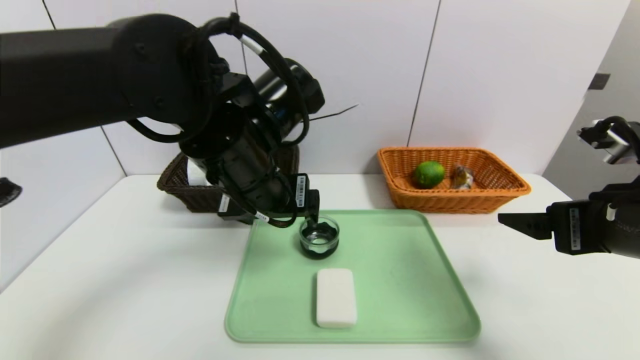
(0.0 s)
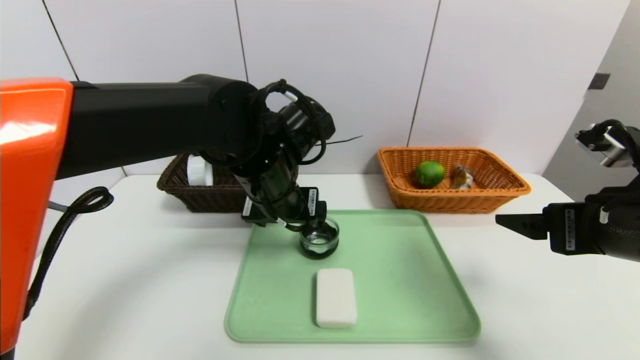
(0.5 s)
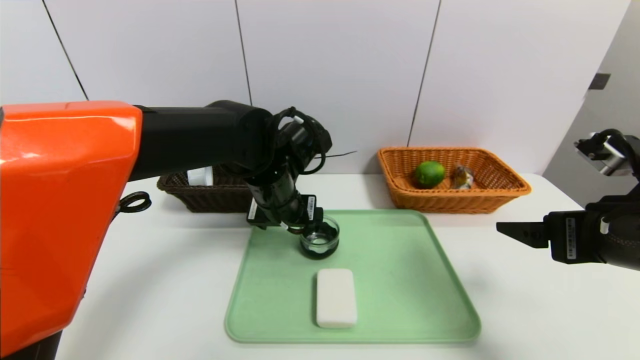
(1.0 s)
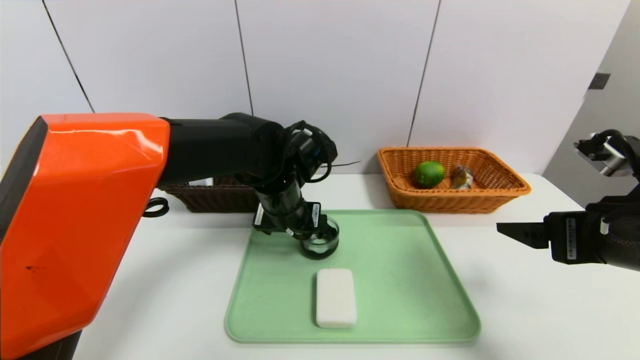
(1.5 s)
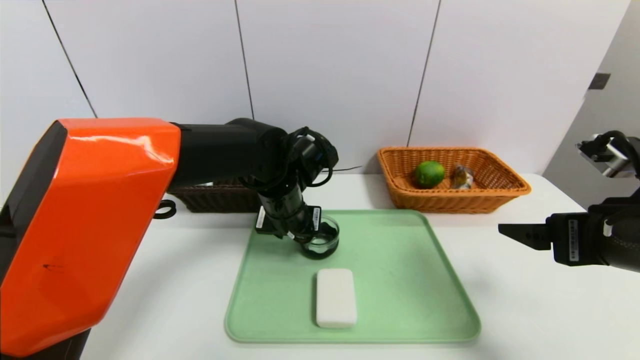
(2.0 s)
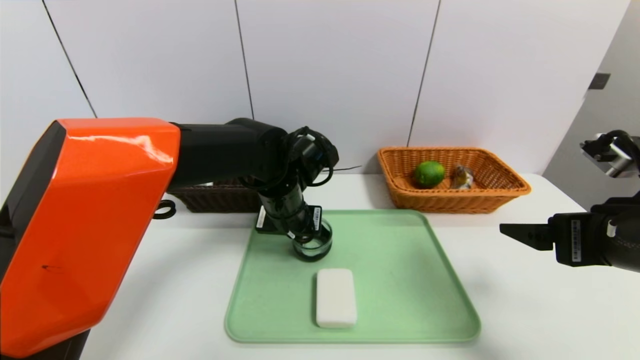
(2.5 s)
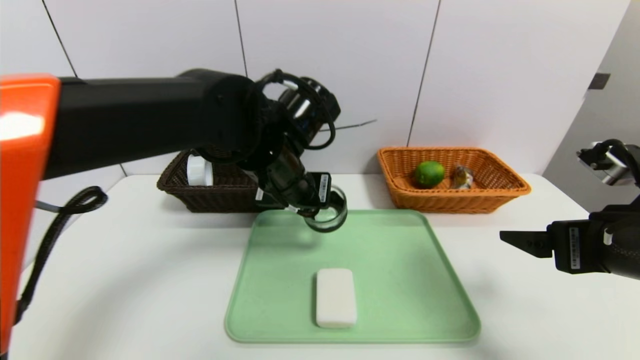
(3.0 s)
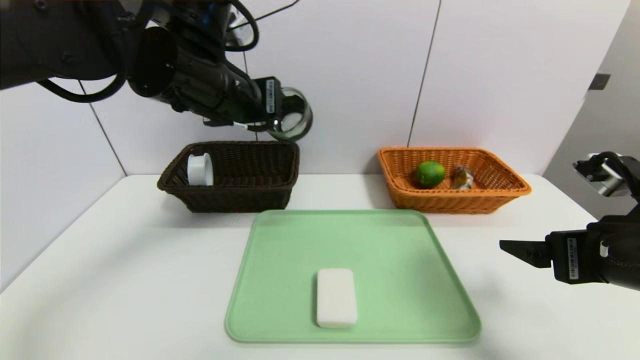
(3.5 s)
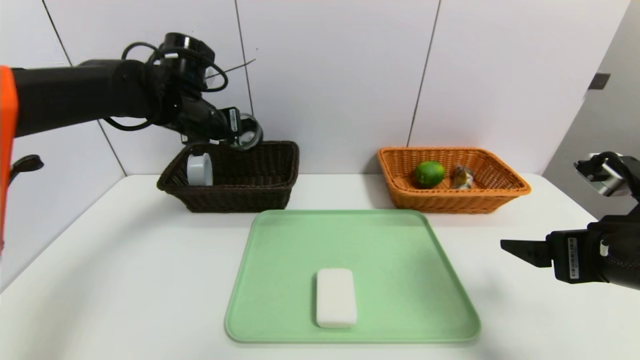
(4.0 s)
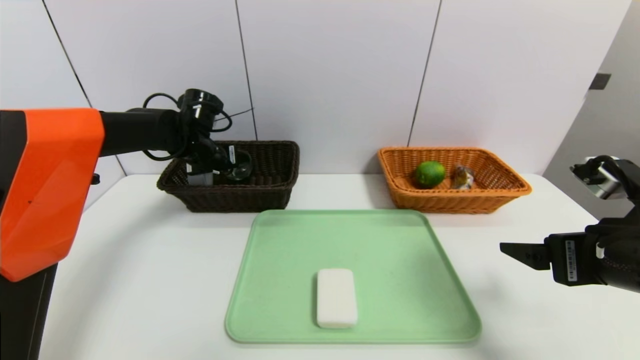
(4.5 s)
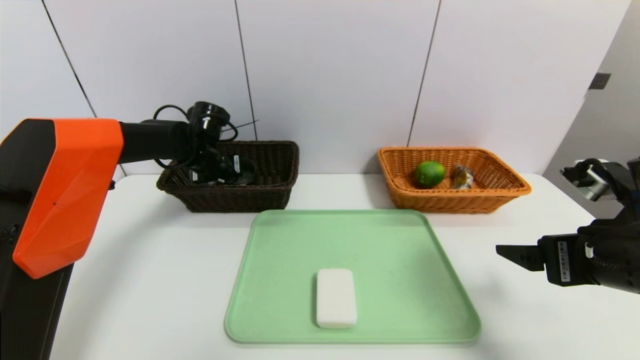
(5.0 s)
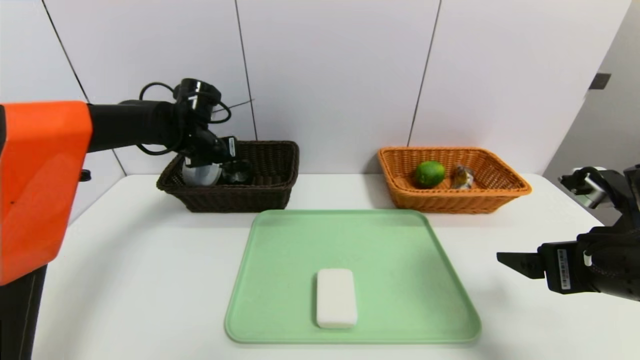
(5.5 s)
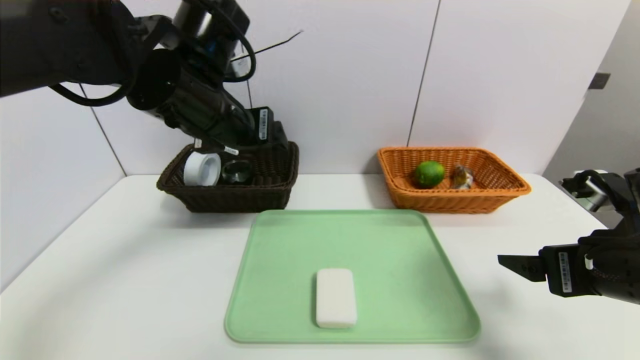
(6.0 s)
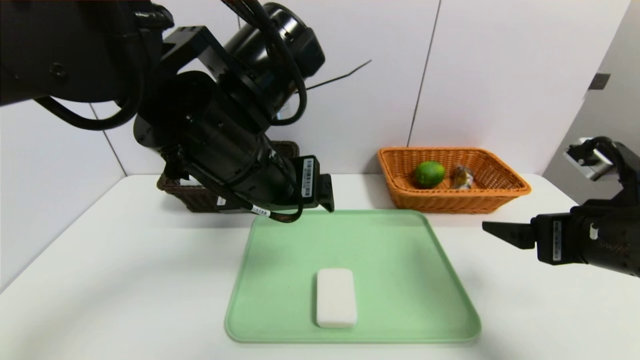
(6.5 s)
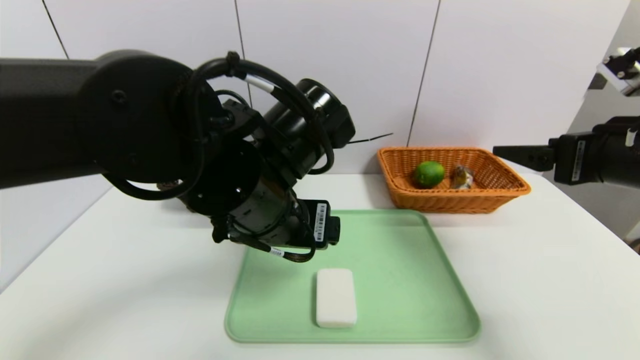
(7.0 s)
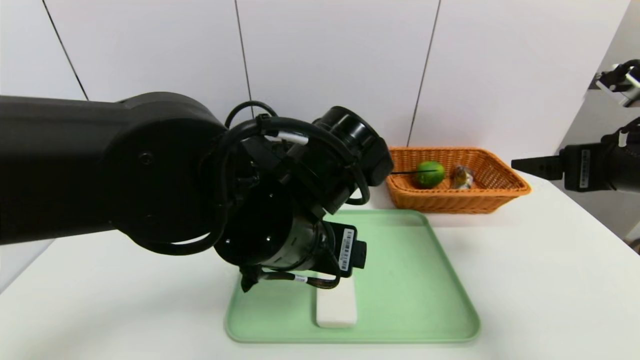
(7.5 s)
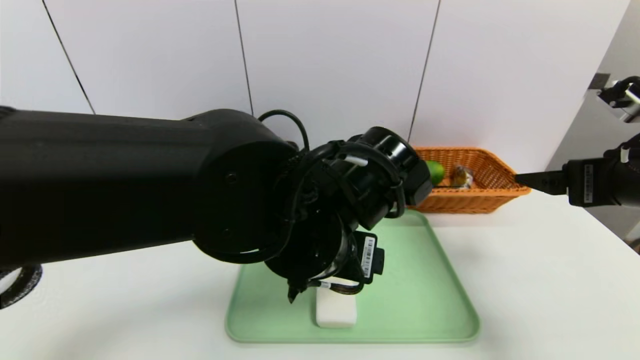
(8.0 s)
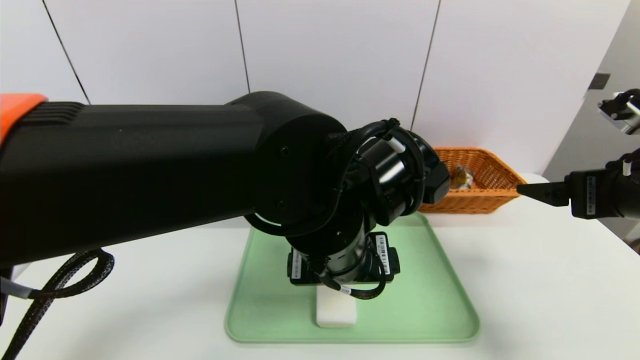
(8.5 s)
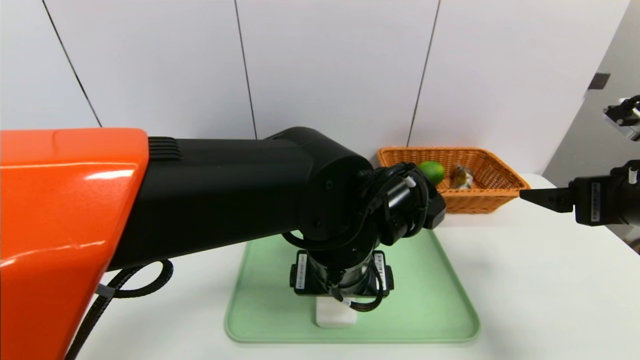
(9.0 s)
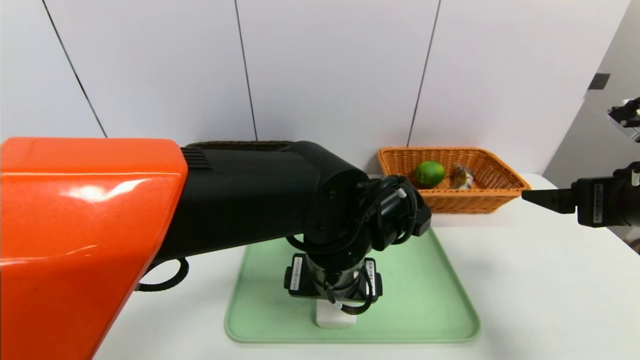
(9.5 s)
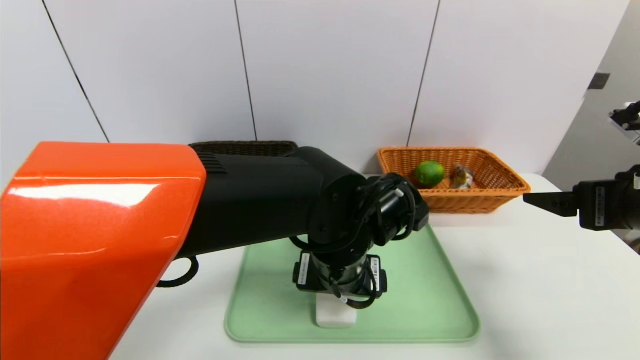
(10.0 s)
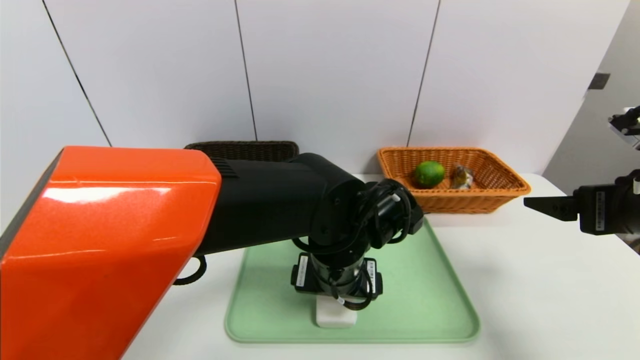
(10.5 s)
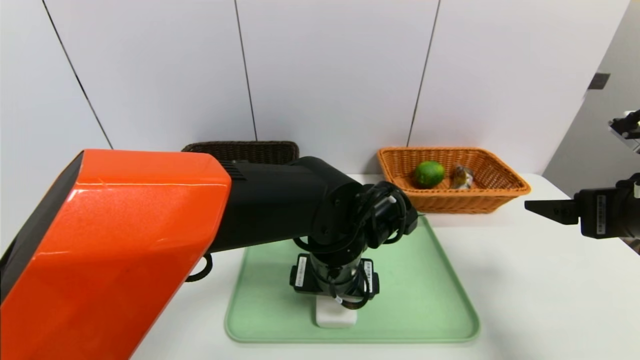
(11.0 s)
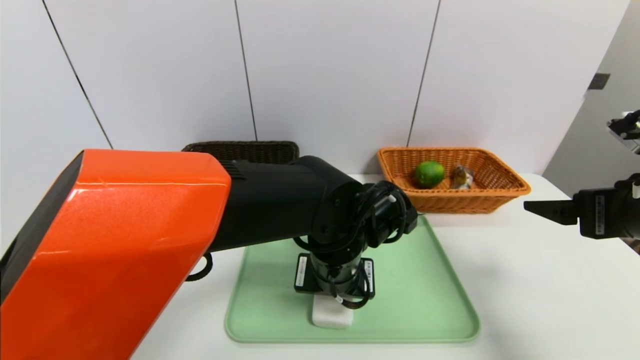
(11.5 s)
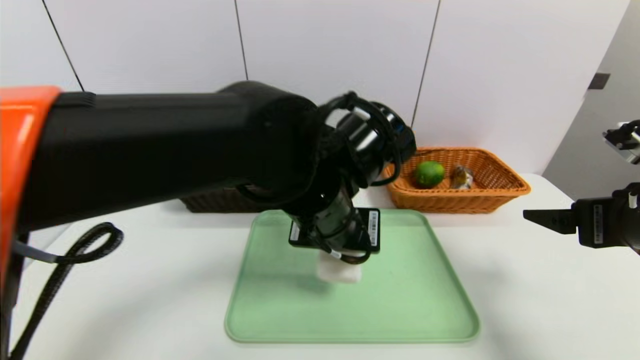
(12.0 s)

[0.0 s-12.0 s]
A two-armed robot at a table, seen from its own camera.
Task of the whole recording: place the food in the right basket with the right gripper, and place the non food items in the left basket with the left gripper.
Step, 0.0 to 5.5 s: Grasp the black glass cup and put it in the left basket.
0.0 to 2.0 s: The left gripper moves downward and forward, approximately 10 cm, and closes its fingers.
2.0 to 4.0 s: The left gripper heads to the left, upward and forward, covering roughly 20 cm, and closes.
4.0 to 6.0 s: The left gripper shifts some 15 cm backward and to the right, and opens its fingers.
6.0 to 8.0 s: The right gripper heads upward, covering about 5 cm. The left gripper shifts about 20 cm to the right, backward and downward.
8.0 to 10.0 s: The left gripper goes about 5 cm downward.
10.0 to 12.0 s: The left gripper shifts about 5 cm upward, and closes up.

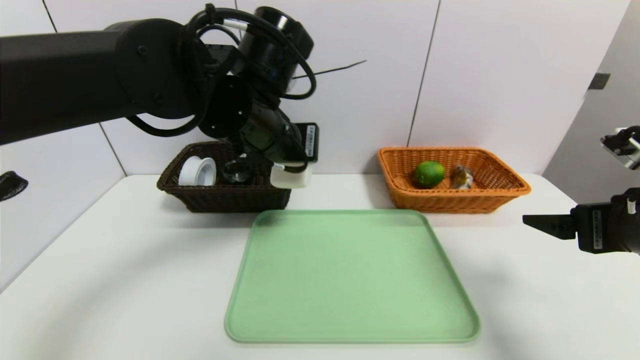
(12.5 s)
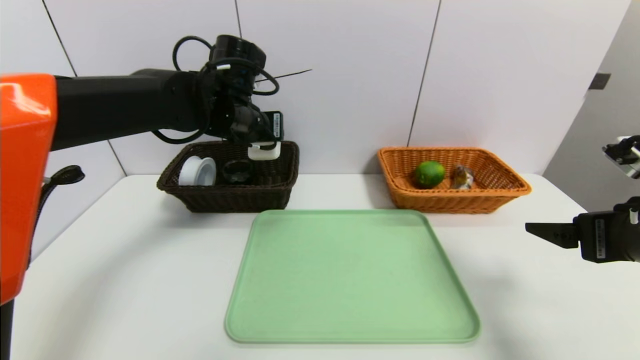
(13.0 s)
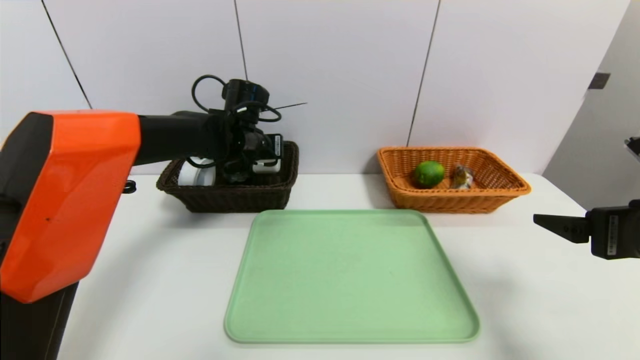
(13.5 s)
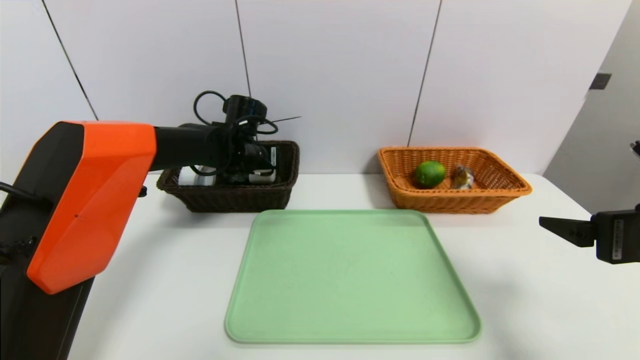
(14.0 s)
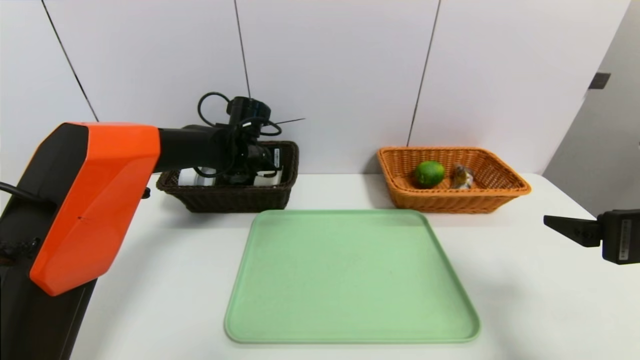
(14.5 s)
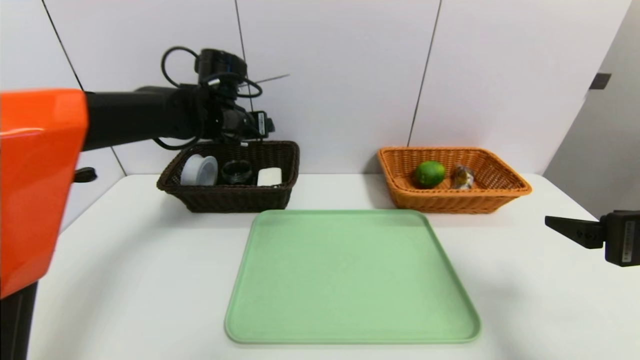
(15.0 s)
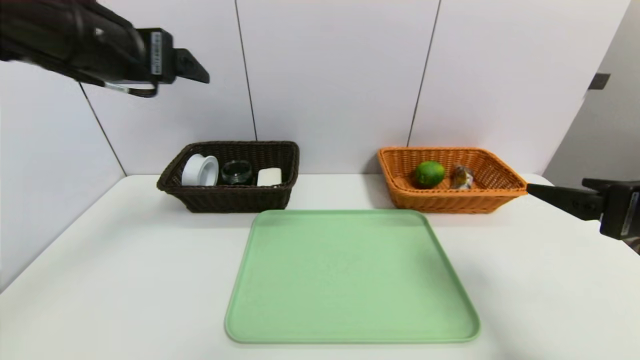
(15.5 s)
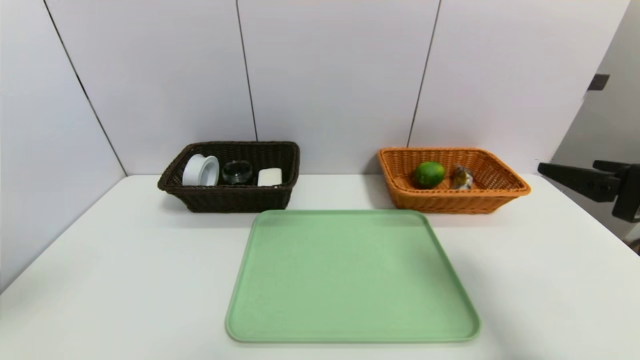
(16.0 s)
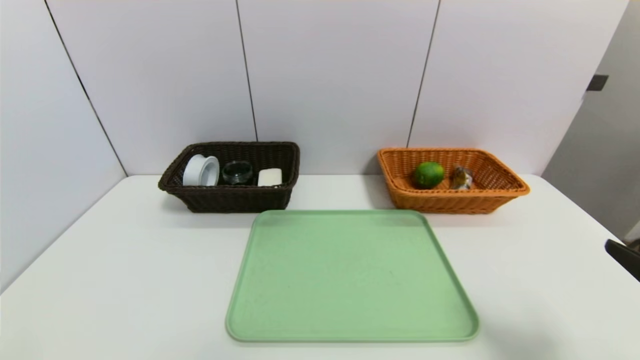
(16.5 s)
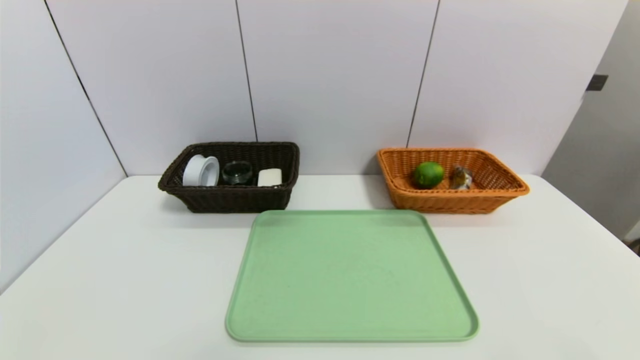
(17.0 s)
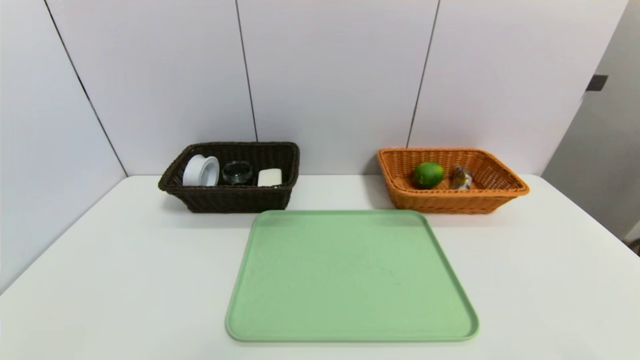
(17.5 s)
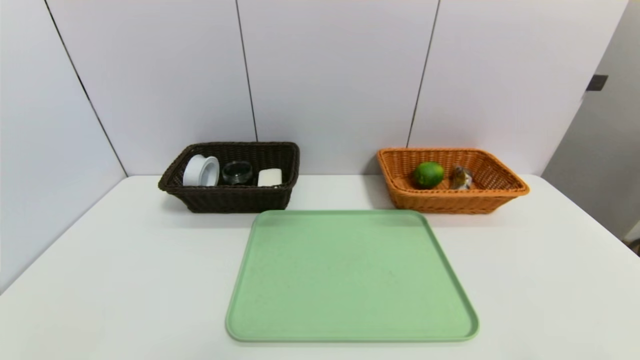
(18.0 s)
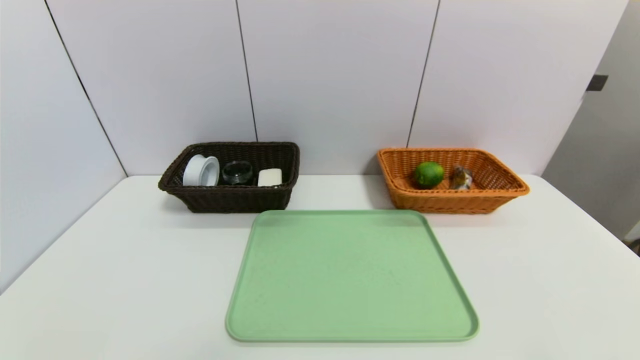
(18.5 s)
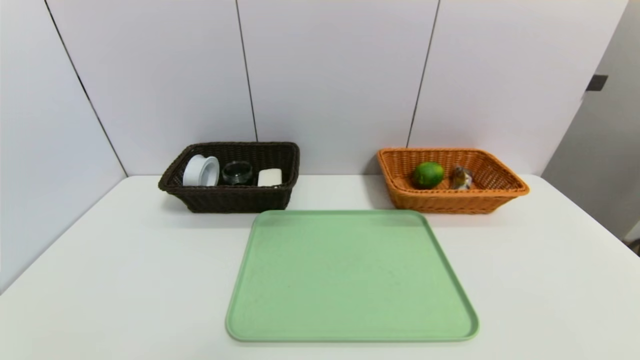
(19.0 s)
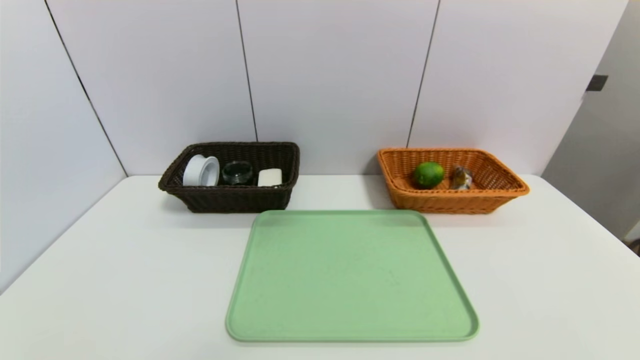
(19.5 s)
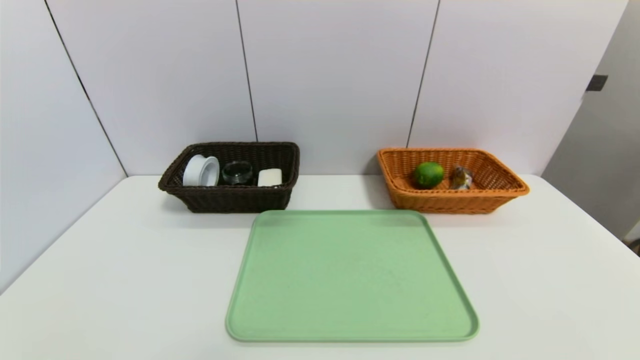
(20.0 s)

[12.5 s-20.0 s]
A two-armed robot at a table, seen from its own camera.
Task of the whole recording: place the food in the right basket with the right gripper, and place the non food items in the left basket with the left gripper.
Step, 12.5 to 14.5 s: Grasp the soap and put it in the left basket.
12.5 to 14.5 s: The left gripper goes approximately 20 cm forward and downward.
14.5 to 16.5 s: The left gripper moves backward, about 50 cm. The right gripper shifts about 10 cm backward.
16.5 to 18.0 s: The right gripper moves backward and downward, approximately 10 cm.
